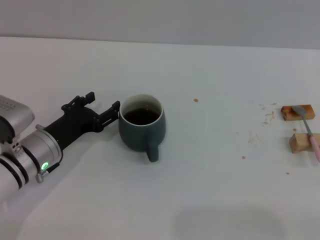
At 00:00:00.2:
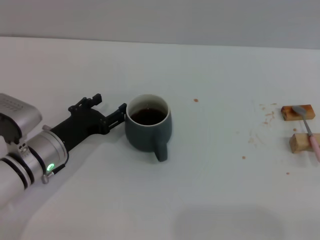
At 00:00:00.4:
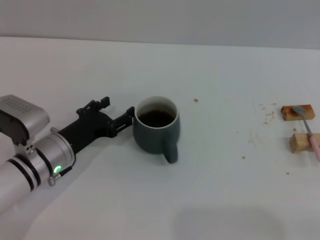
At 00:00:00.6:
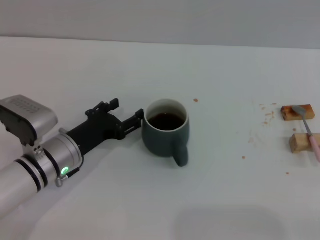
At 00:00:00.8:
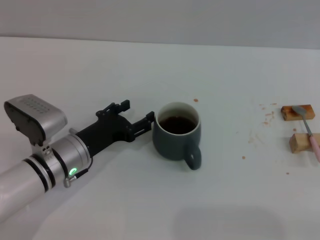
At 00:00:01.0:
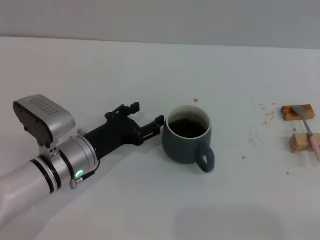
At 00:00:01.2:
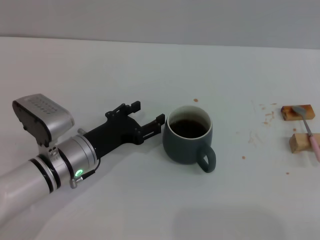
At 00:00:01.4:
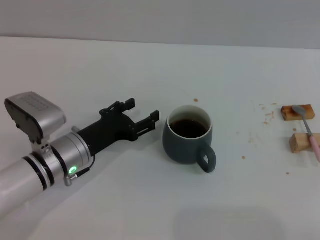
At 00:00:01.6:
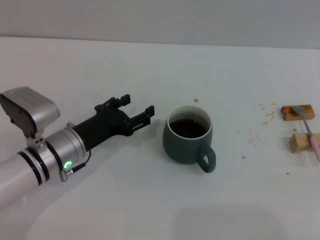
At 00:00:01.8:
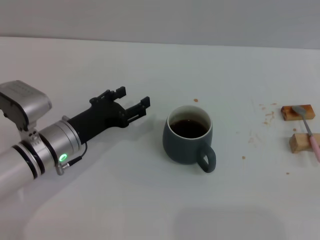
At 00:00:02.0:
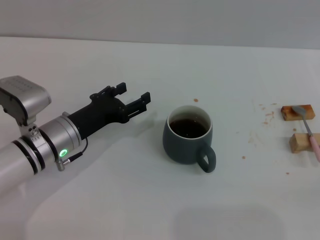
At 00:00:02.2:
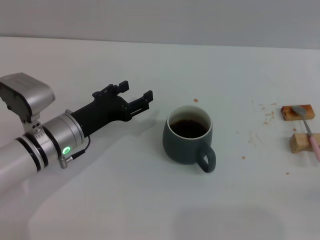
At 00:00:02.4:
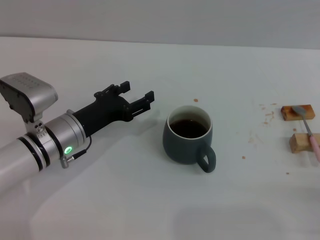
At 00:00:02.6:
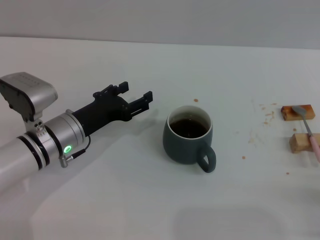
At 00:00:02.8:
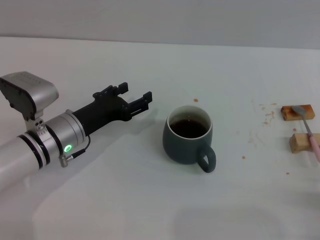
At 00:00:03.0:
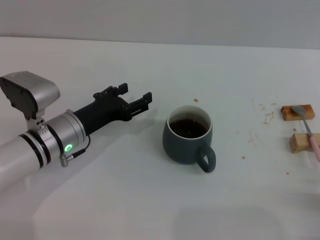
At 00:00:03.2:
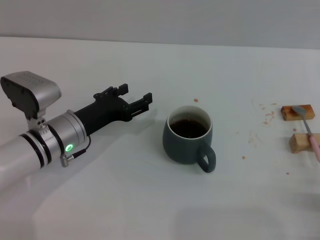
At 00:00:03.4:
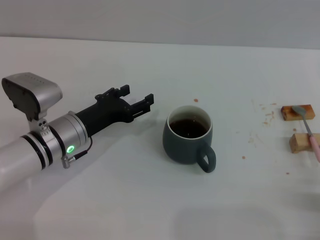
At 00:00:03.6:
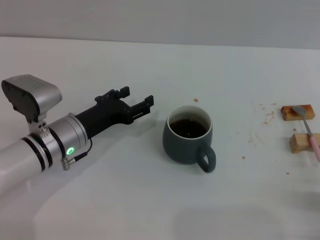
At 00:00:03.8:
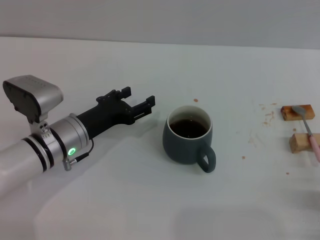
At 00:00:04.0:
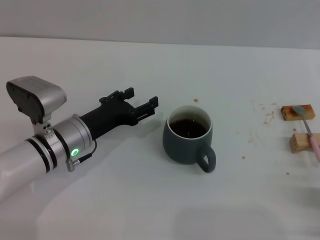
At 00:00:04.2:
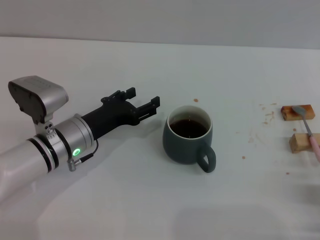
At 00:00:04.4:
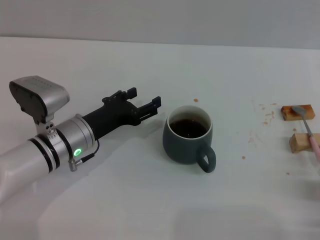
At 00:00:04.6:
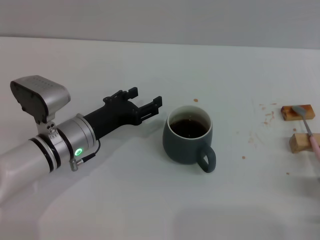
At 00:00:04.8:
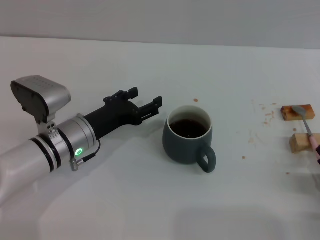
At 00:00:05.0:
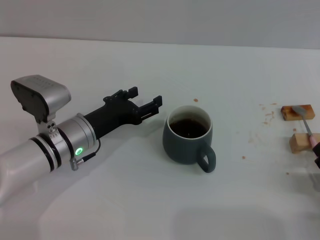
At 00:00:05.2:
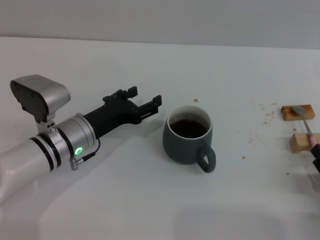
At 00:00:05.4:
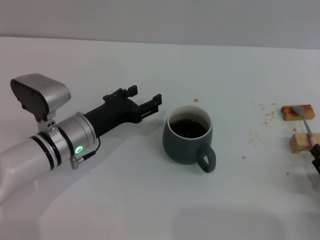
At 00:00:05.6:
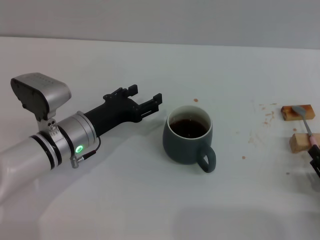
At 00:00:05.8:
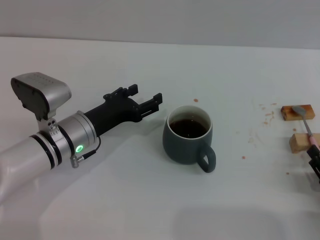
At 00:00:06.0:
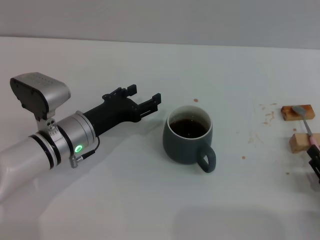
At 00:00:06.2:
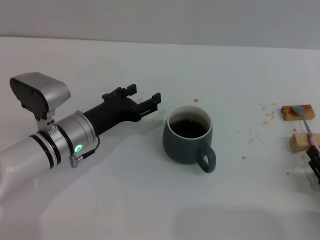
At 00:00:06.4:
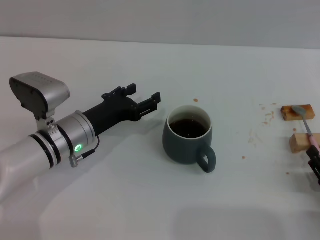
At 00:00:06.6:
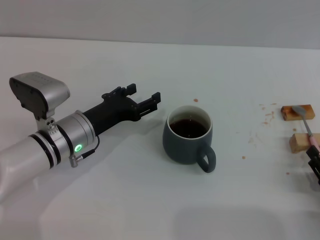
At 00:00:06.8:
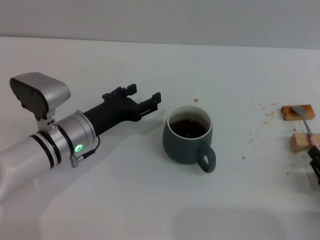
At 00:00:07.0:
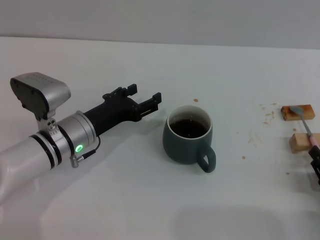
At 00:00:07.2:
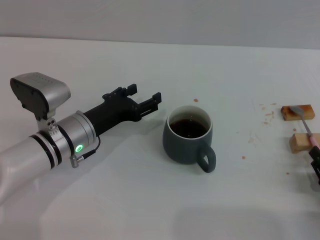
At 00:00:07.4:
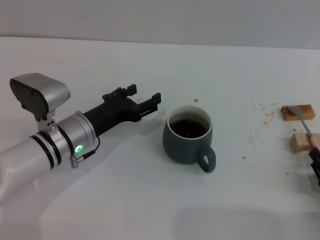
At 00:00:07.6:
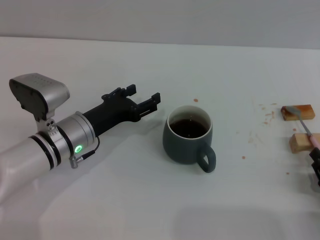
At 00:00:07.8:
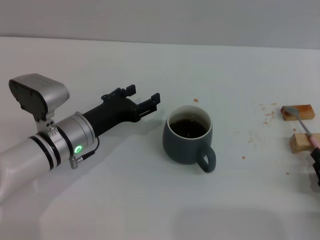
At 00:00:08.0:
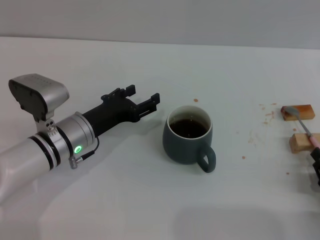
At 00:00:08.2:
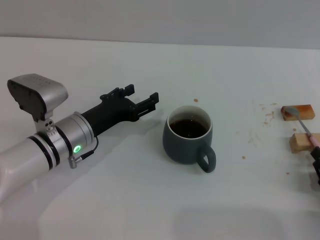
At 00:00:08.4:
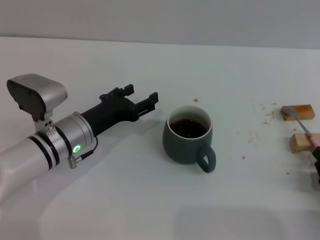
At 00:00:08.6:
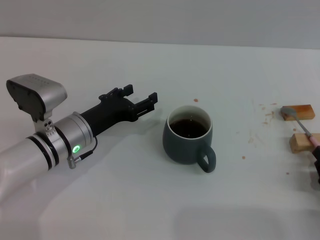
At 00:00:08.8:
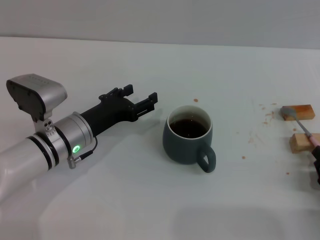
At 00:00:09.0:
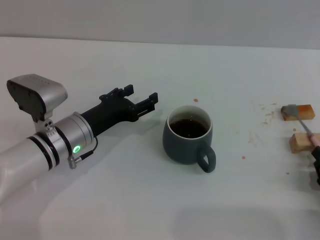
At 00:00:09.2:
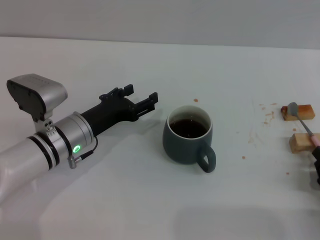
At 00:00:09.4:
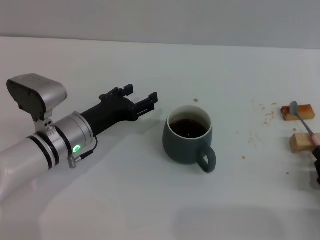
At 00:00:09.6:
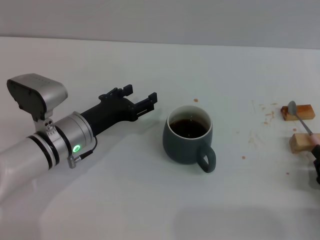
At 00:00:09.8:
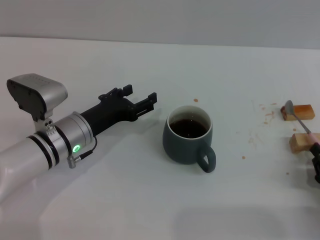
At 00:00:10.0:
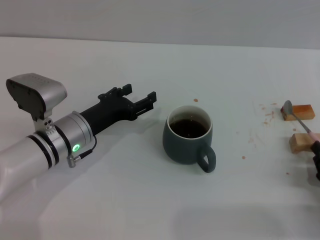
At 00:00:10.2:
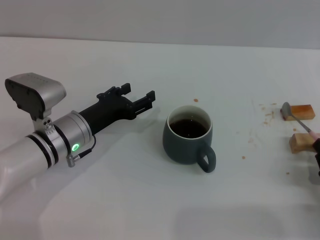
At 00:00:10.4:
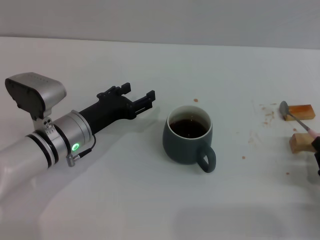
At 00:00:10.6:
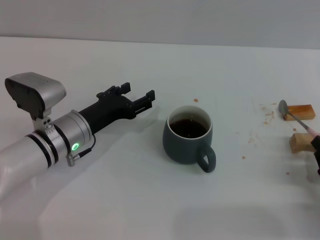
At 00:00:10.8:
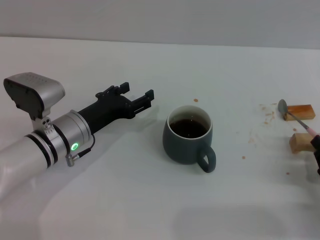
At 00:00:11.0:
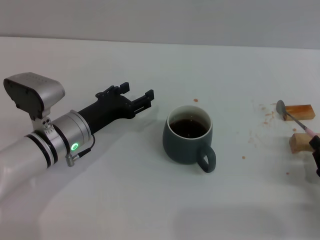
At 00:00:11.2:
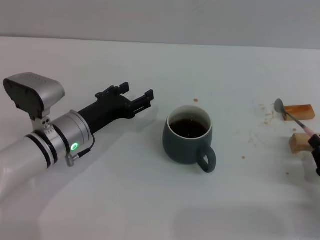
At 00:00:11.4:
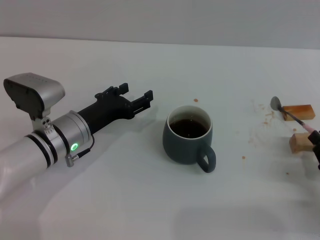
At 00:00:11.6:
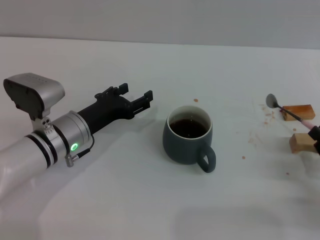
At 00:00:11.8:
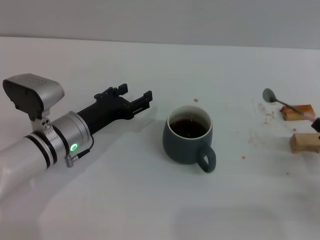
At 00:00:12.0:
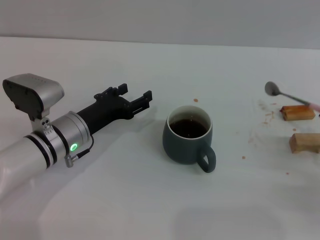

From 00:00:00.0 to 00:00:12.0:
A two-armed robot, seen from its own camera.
Task of the whole recording: Move the grey cup to the center, lift the pink spoon, stir it three times in the cup, and put the spoon into the cup.
From 00:00:00.0 to 00:00:01.6: There are only small adjustments of the grippers.
From 00:00:01.6 to 00:00:03.0: The right gripper is displaced to the left by about 10 cm.
From 00:00:03.0 to 00:00:06.0: The grippers stay close to where they were, moving slightly.
From 00:00:06.0 to 00:00:10.4: Both grippers stay put.
From 00:00:10.4 to 00:00:12.0: The right gripper moves upward, about 5 cm.

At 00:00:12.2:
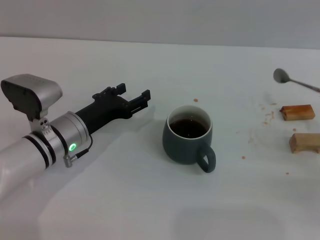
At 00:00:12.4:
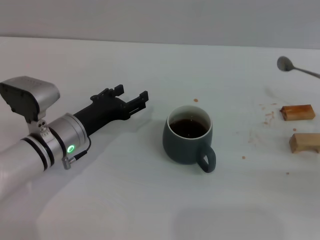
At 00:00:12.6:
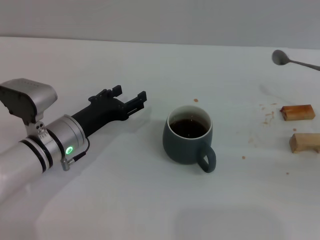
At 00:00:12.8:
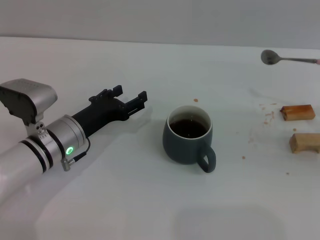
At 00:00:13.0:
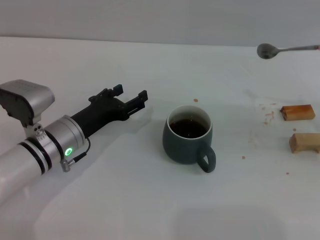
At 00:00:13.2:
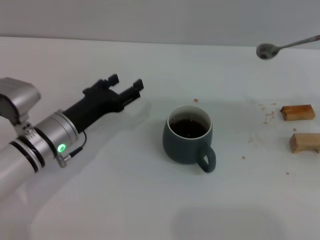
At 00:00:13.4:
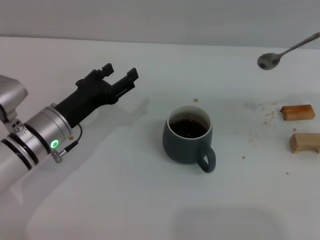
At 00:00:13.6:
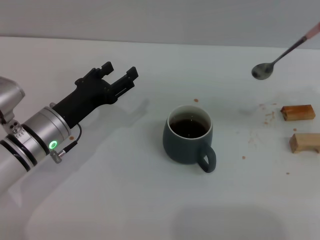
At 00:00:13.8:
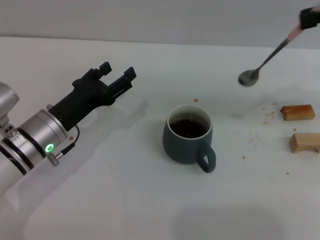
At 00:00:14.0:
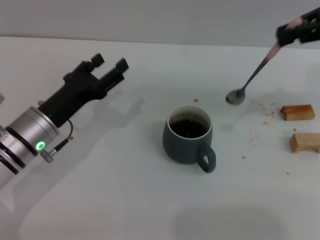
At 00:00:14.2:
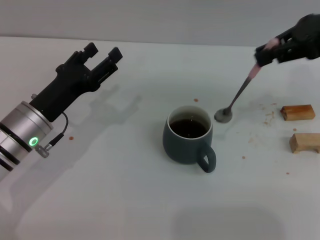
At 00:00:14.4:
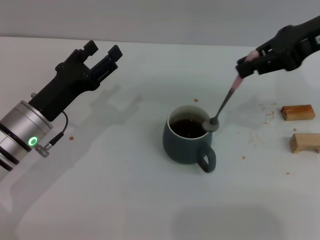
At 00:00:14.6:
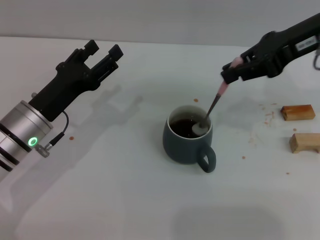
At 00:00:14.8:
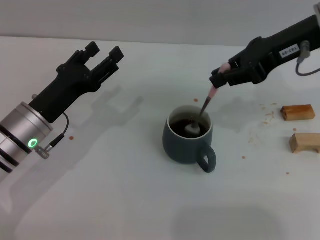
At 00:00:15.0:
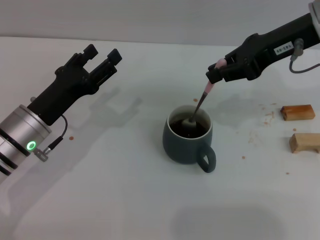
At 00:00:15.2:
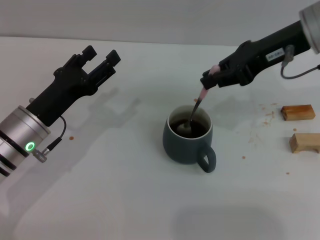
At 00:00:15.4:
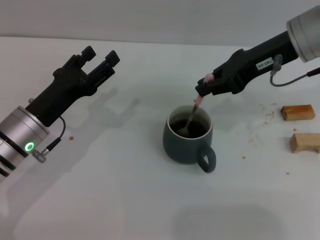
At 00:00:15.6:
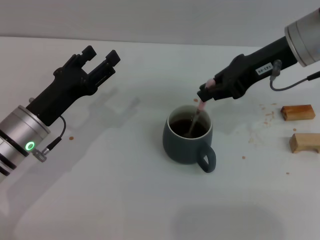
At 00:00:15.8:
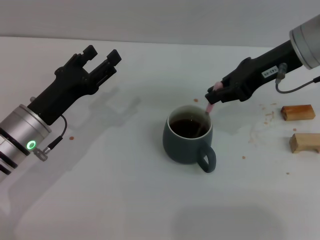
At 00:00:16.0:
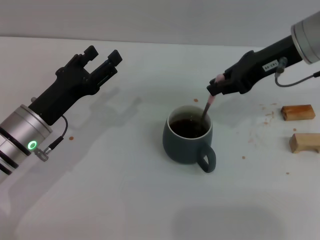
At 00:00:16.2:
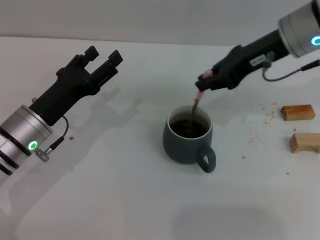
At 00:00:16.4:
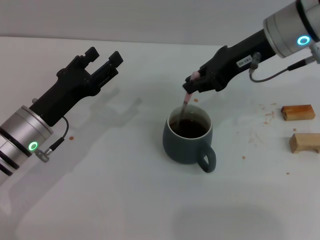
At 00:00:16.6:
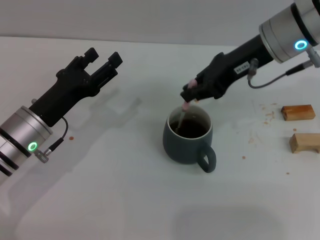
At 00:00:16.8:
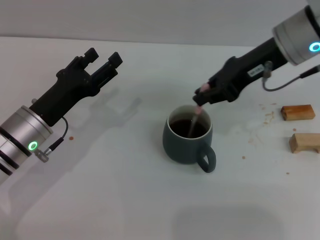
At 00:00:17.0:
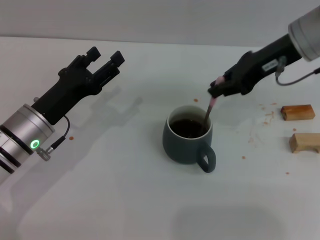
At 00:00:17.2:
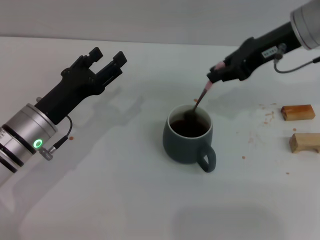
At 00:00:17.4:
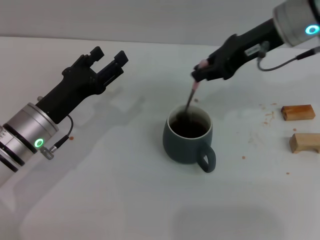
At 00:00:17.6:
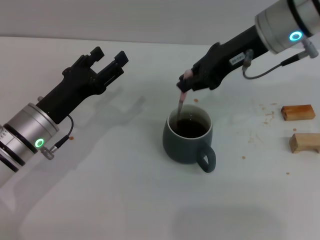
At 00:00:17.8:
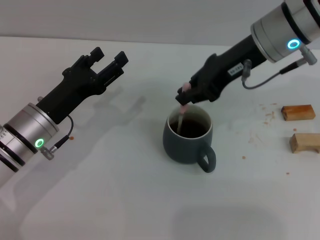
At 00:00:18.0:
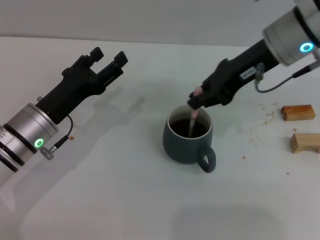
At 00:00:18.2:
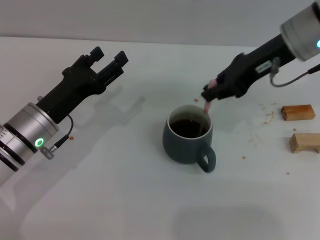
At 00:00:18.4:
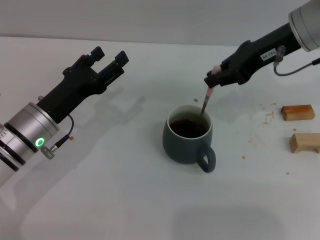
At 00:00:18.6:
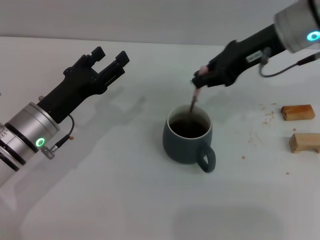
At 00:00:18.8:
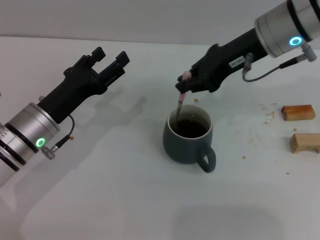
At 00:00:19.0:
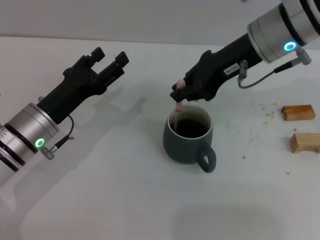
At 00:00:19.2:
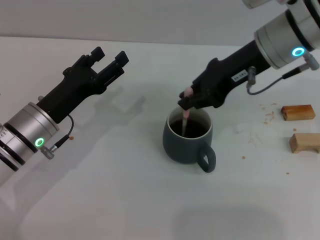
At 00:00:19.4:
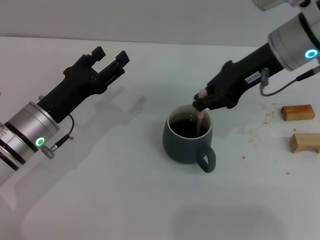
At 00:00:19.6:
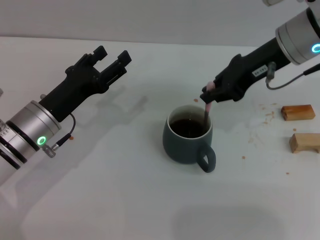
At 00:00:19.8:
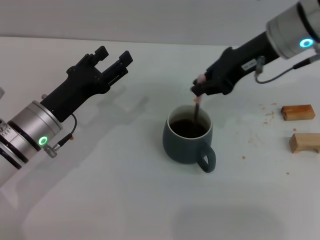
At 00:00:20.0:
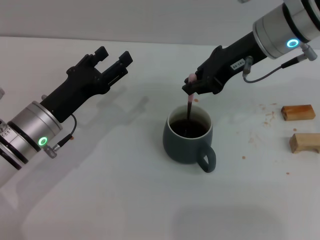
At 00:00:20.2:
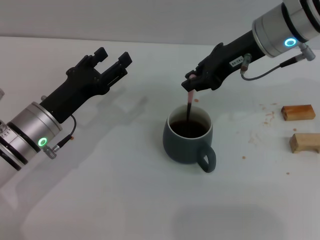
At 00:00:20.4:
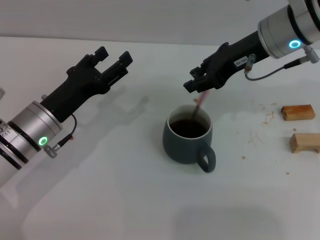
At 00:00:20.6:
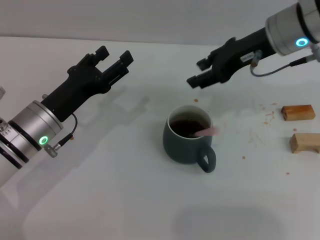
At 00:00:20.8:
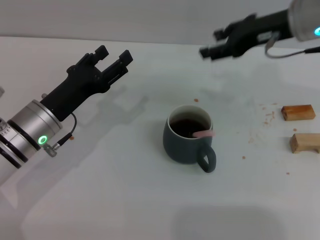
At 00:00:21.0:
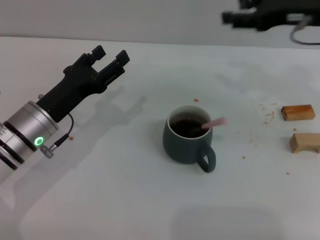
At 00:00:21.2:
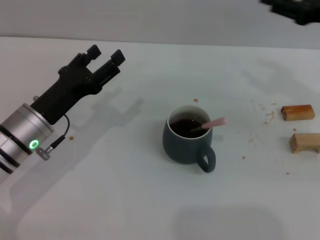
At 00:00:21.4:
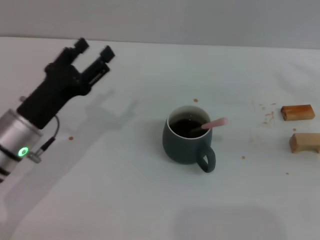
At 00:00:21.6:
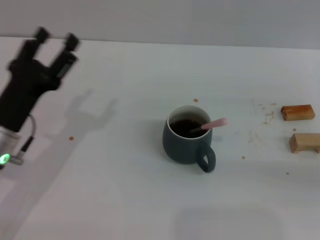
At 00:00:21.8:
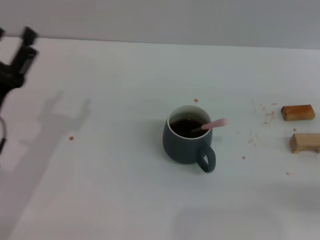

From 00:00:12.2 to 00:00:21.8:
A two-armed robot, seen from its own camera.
Task of the whole recording: Move the grey cup to the center, lift the pink spoon, stir it three times in the cup, and put the spoon into the cup.
Step, from 00:00:12.2 to 00:00:20.4: Stir the coffee in the cup with the right gripper.
From 00:00:12.2 to 00:00:13.8: The right gripper goes approximately 30 cm upward and forward.
From 00:00:13.8 to 00:00:15.4: The right gripper goes some 15 cm to the left and downward.
From 00:00:15.4 to 00:00:20.2: The grippers stay close to where they were, moving slightly.
From 00:00:20.2 to 00:00:21.8: The right gripper travels to the right, backward and downward by about 30 cm, and opens up; the left gripper moves backward and to the left, roughly 10 cm.
